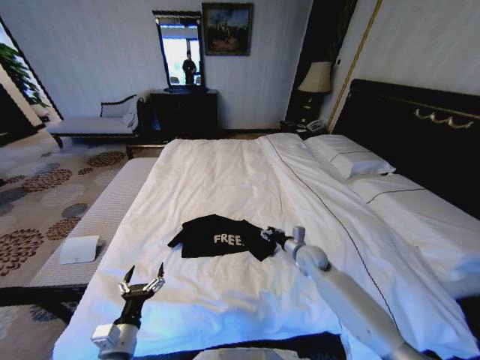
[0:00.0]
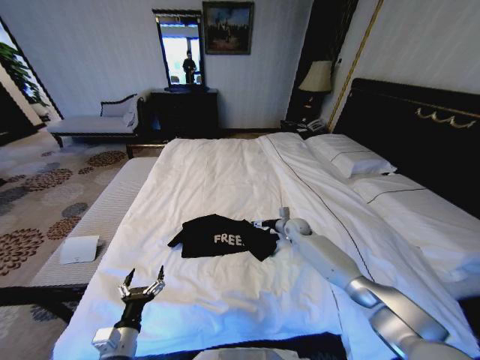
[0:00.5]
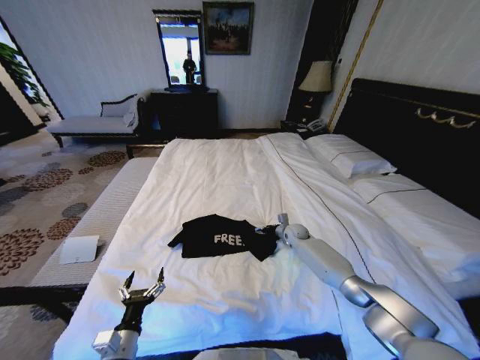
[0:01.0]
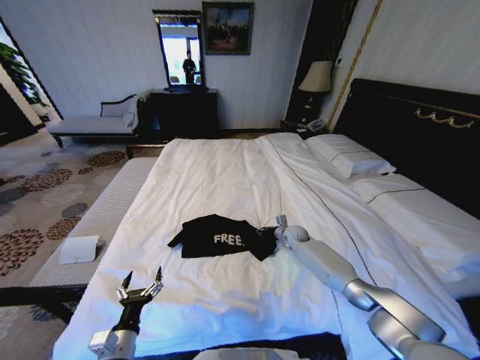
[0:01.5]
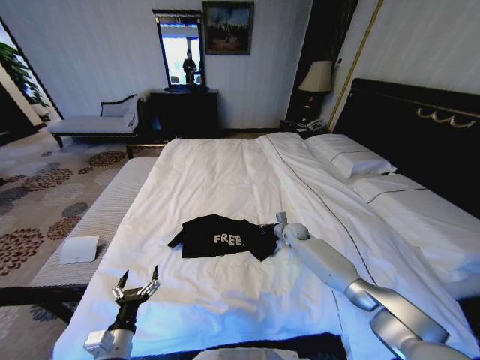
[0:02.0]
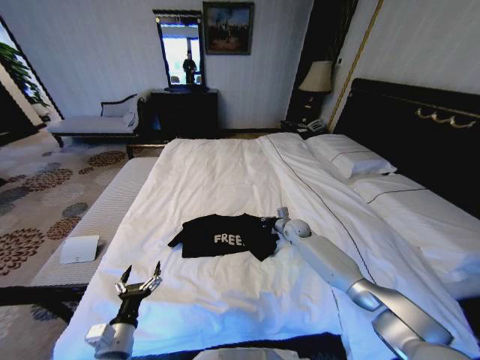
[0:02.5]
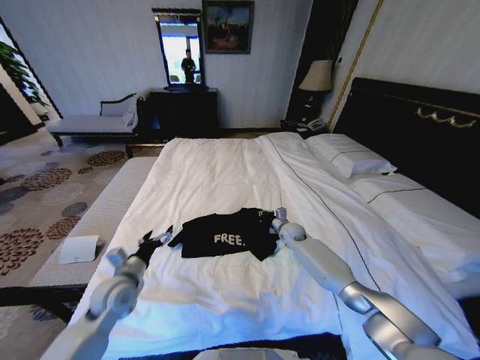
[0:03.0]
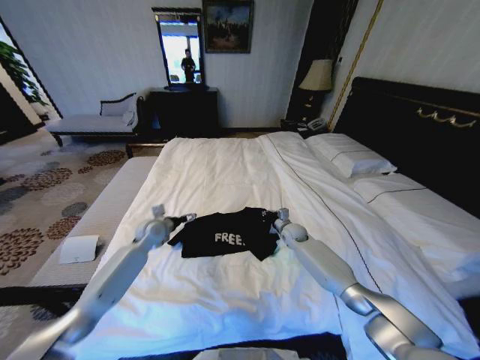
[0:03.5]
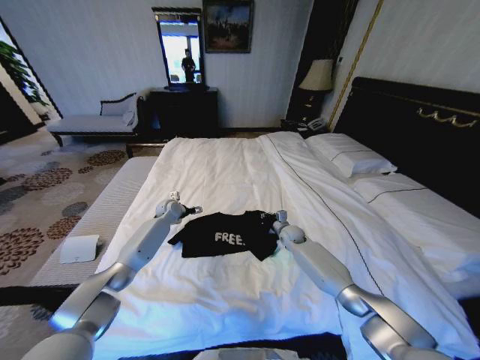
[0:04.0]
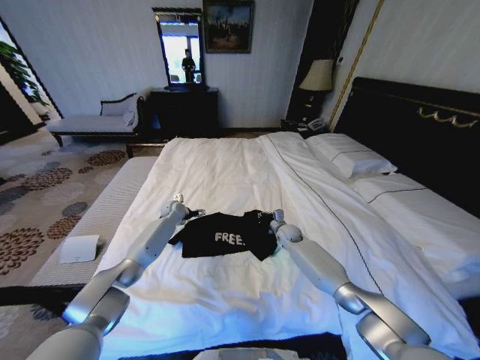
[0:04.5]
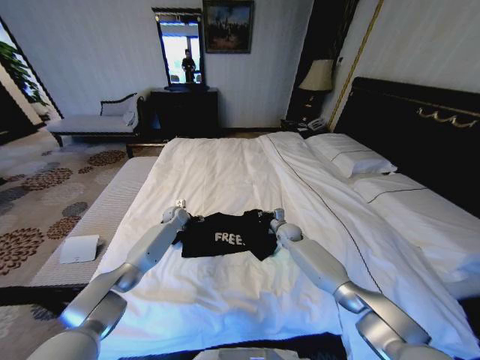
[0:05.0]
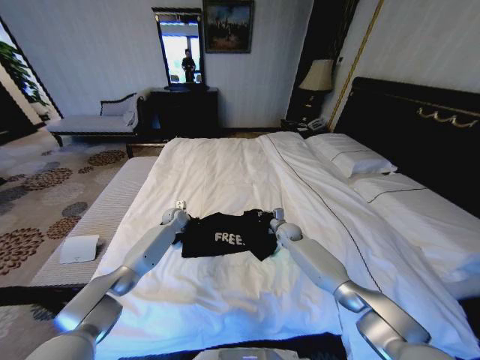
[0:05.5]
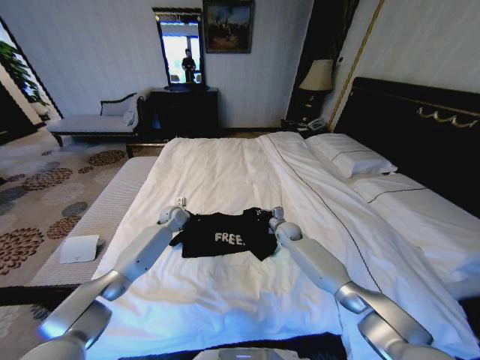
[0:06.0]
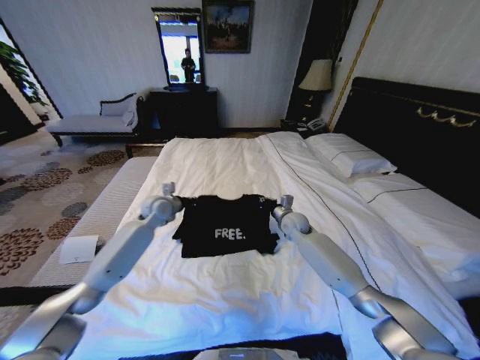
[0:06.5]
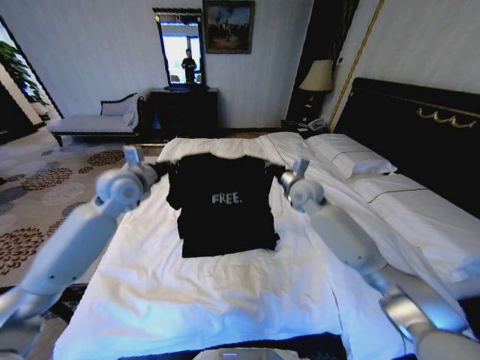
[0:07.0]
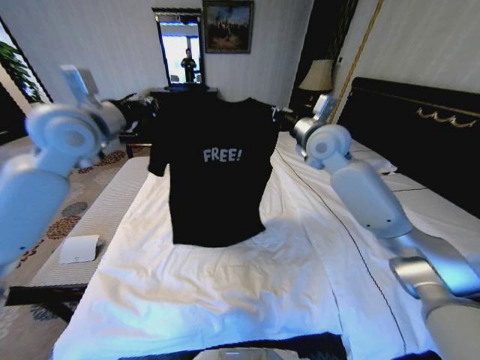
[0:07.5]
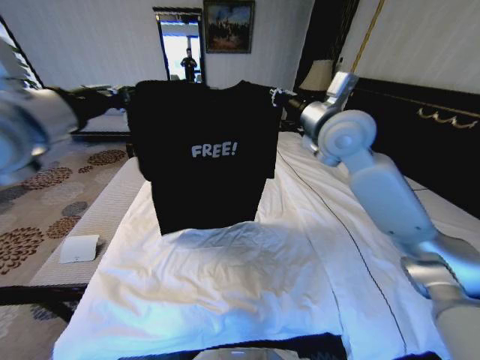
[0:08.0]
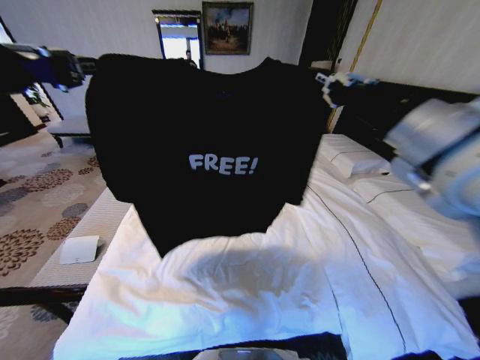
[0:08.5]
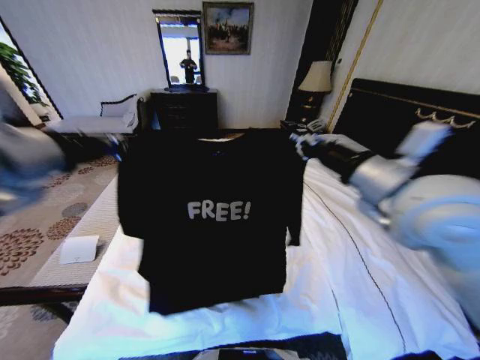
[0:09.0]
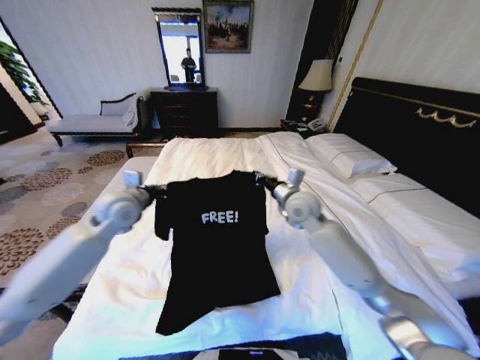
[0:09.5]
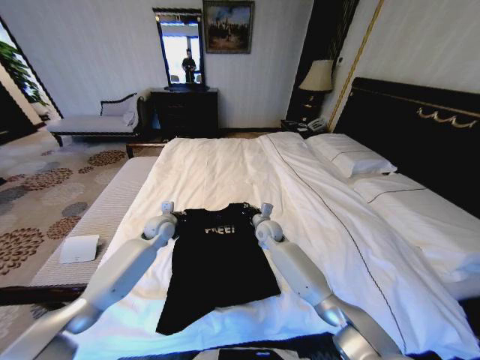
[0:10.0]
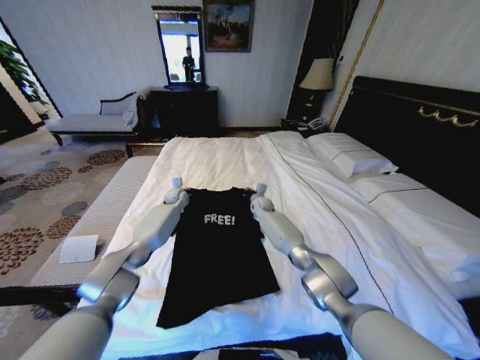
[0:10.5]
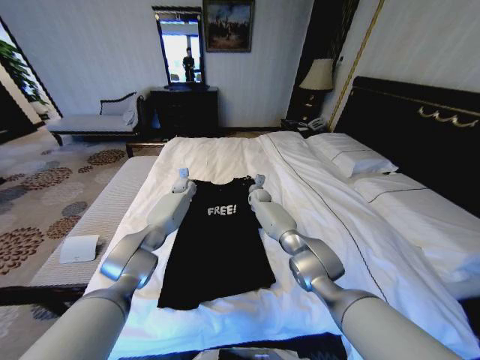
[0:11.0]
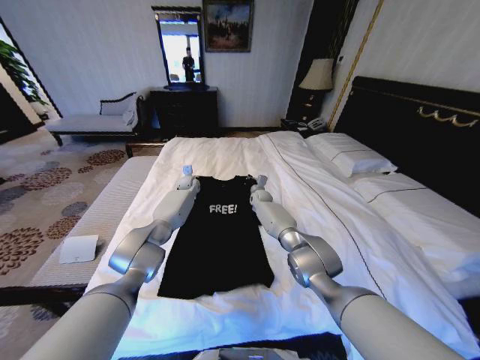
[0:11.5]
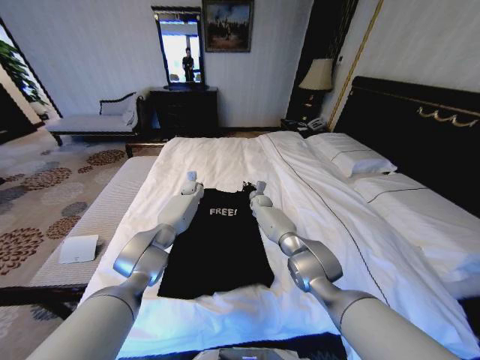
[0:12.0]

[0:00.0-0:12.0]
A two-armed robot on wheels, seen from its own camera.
Task of the whole recording: Fold the clothes on the bed.
0:00.0 to 0:02.0: The right gripper heads forward, covering about 10 cm, and closes up.
0:02.0 to 0:04.0: The left gripper goes roughly 50 cm forward.
0:04.0 to 0:06.0: The left gripper closes its fingers.
0:06.0 to 0:08.0: The left gripper moves upward and backward, roughly 50 cm. The right gripper goes approximately 40 cm upward.
0:08.0 to 0:10.0: The left gripper travels downward and forward by about 40 cm; the right gripper goes some 40 cm downward.
0:10.0 to 0:12.0: The right gripper moves forward, approximately 15 cm, while the left gripper shifts approximately 20 cm forward and to the right.

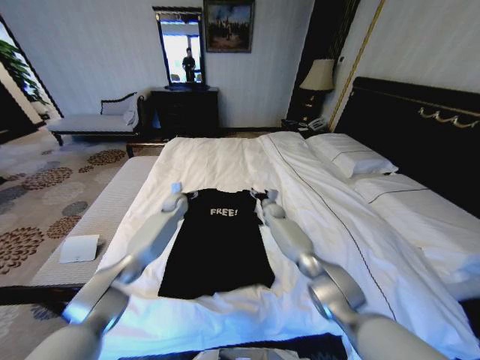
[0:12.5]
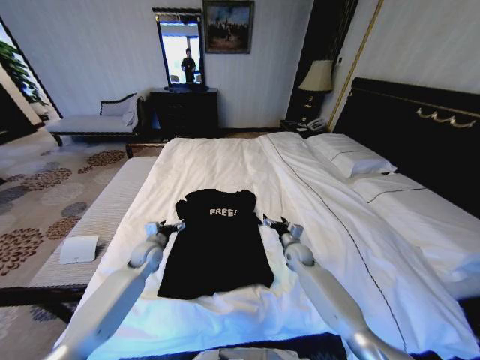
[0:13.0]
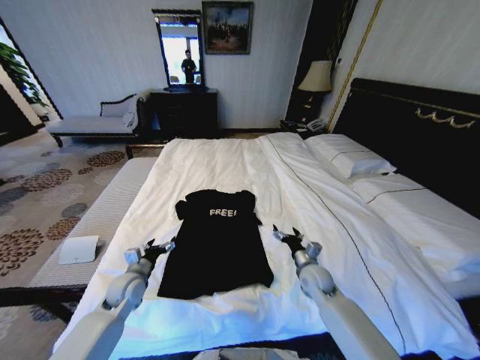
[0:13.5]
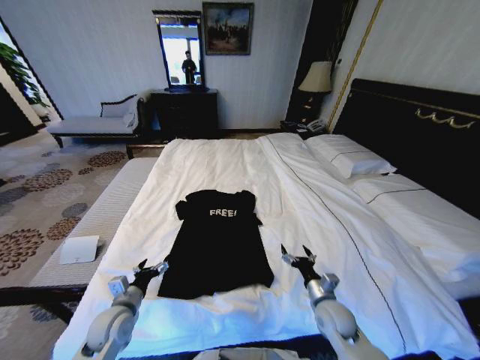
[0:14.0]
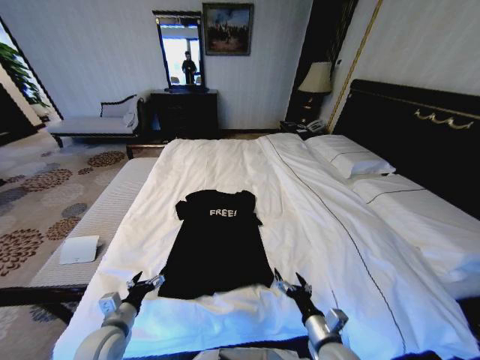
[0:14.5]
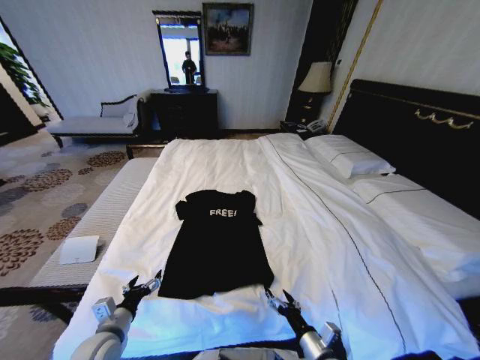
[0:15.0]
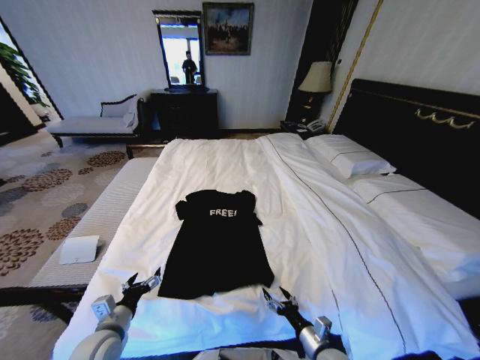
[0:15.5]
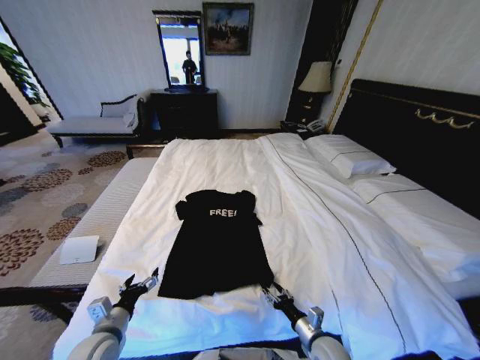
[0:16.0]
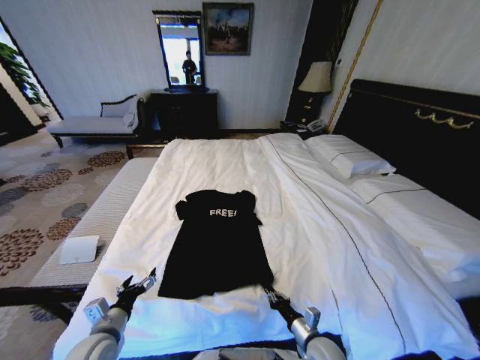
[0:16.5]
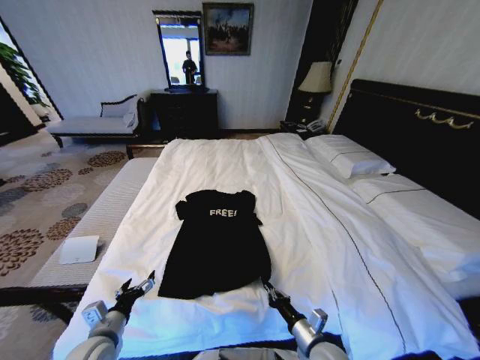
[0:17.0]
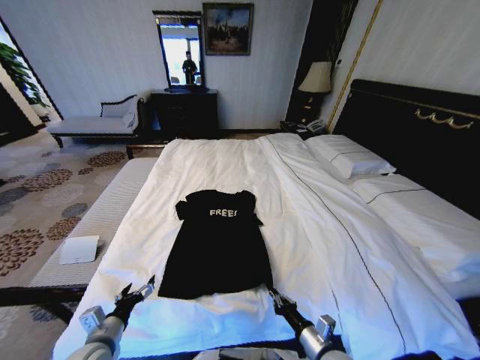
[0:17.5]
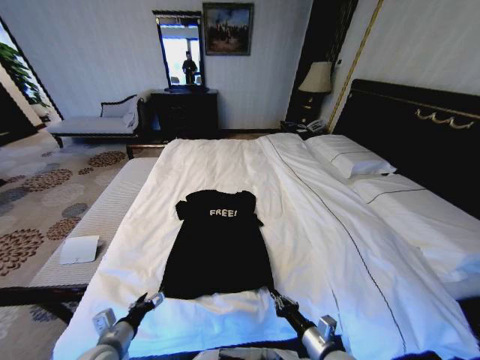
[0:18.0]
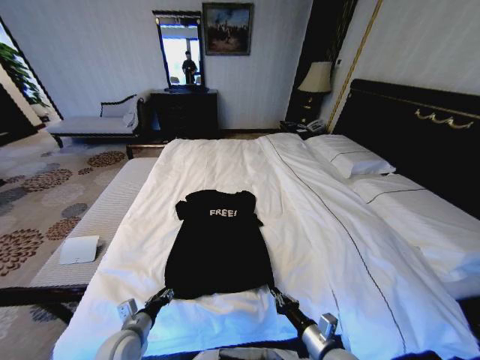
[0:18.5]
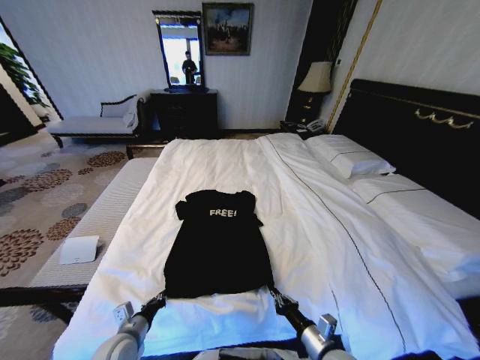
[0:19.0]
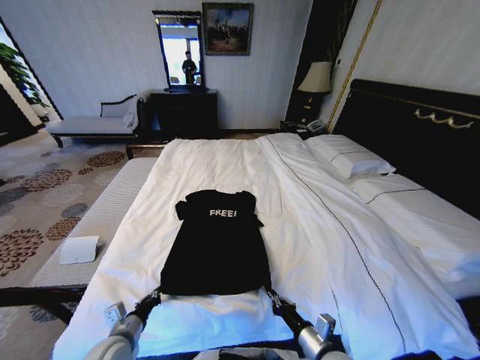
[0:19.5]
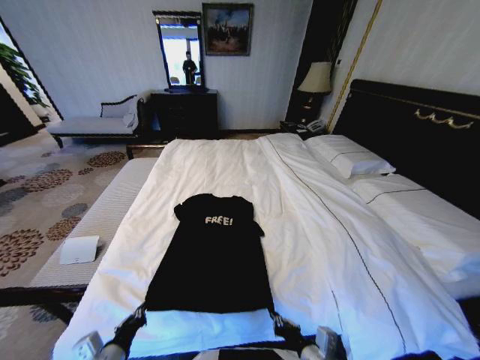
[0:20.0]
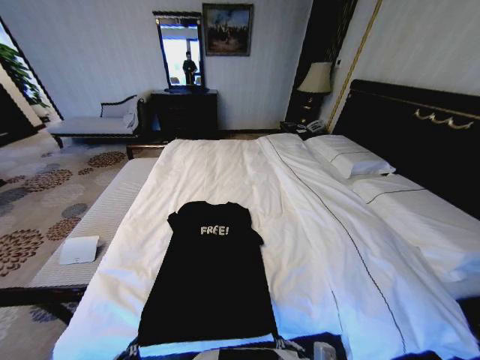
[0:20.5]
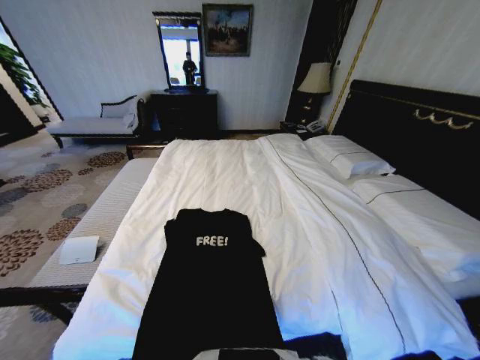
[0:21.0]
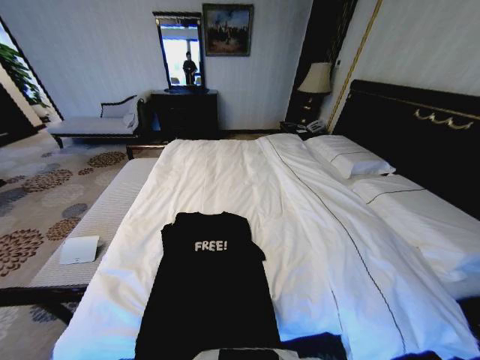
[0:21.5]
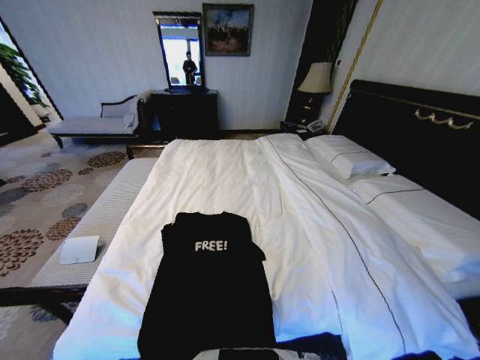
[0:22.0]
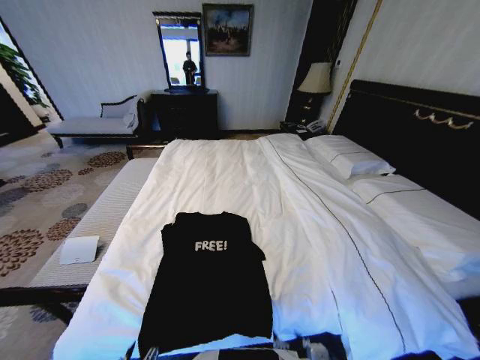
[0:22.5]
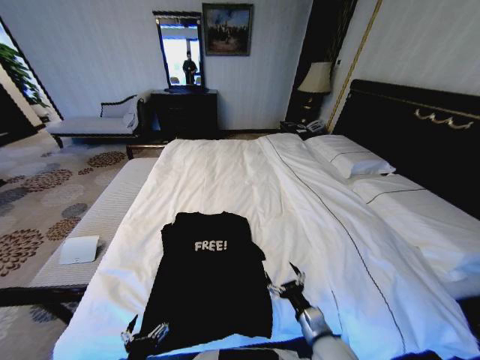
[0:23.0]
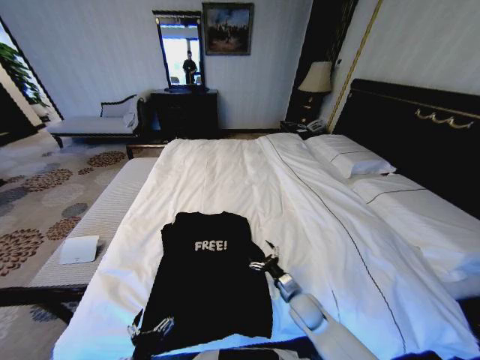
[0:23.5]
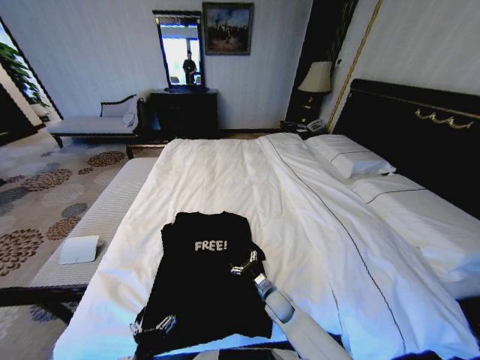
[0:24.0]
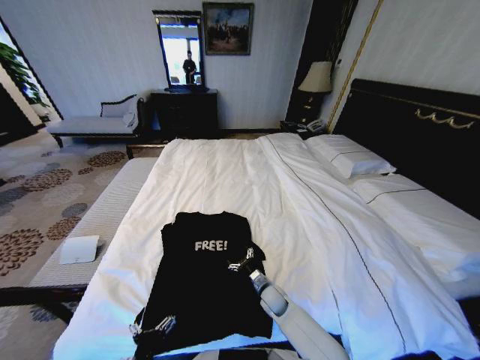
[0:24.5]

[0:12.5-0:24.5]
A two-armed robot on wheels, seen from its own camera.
Task of the whole recording: Fold the clothes on the bed.
0:12.5 to 0:14.5: Both grippers move backward, some 40 cm.
0:14.5 to 0:16.5: The right gripper shifts about 10 cm downward, and closes its fingers.
0:16.5 to 0:18.5: The left gripper changes place by some 5 cm, and closes its fingers, while the right gripper moves upward, about 5 cm.
0:18.5 to 0:20.5: The right gripper moves upward, backward and to the left, about 10 cm, while the left gripper goes some 15 cm backward and upward, and closes up.
0:20.5 to 0:22.5: The left gripper shifts by some 5 cm, and opens its fingers. Meanwhile the right gripper opens up.
0:22.5 to 0:24.5: The right gripper moves forward and downward, about 30 cm.

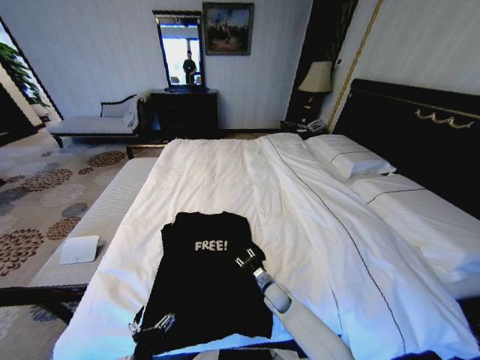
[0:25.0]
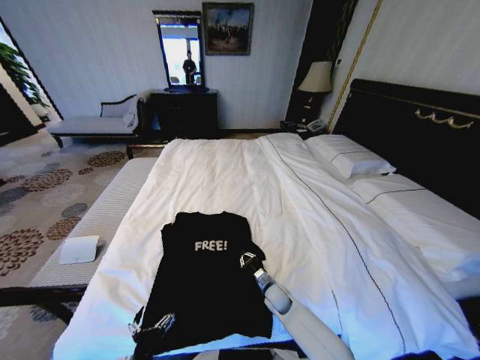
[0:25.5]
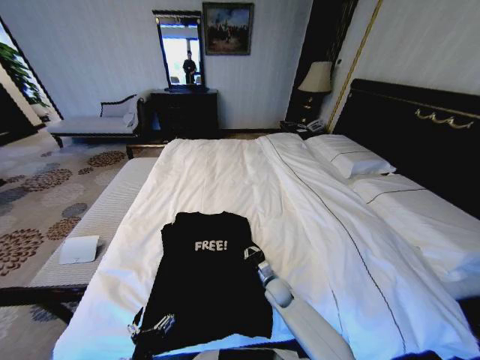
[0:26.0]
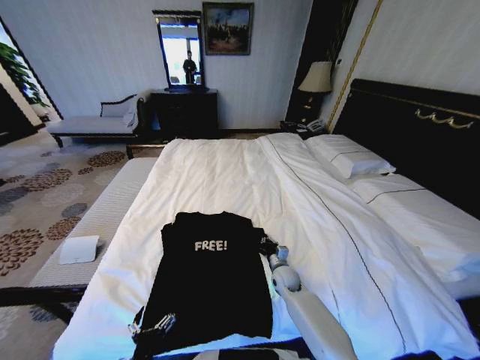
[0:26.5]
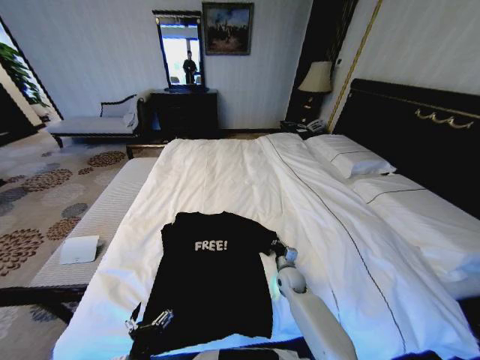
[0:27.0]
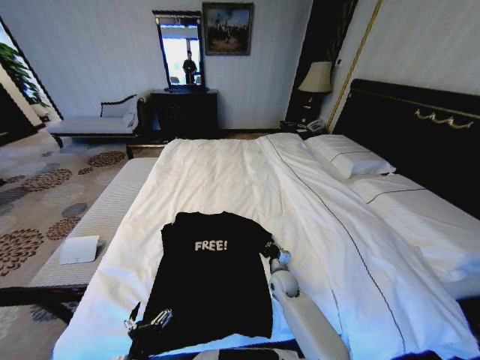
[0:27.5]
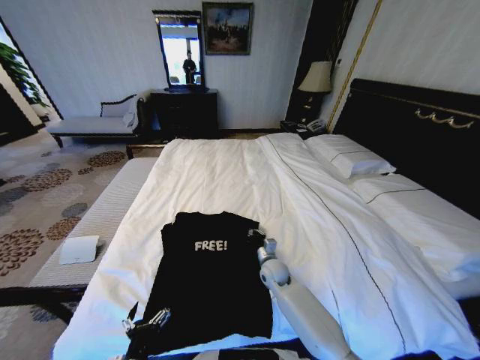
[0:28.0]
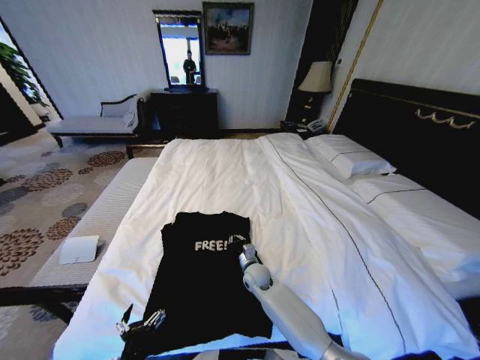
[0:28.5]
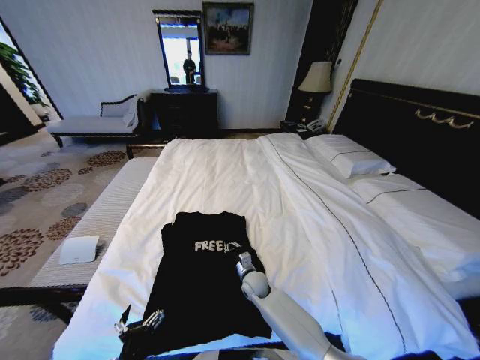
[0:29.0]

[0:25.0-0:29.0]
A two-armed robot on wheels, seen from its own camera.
Task of the whole recording: Fold the clothes on the bed.
0:25.0 to 0:27.0: The right gripper shifts by about 10 cm, and closes its fingers.
0:27.0 to 0:29.0: The right gripper is displaced to the left by some 15 cm.
